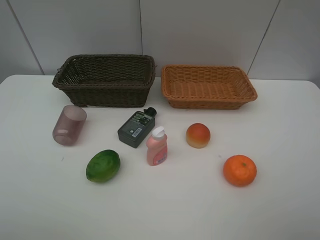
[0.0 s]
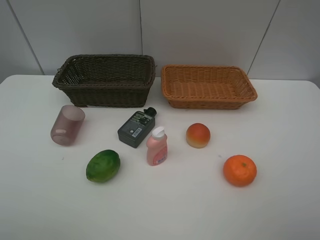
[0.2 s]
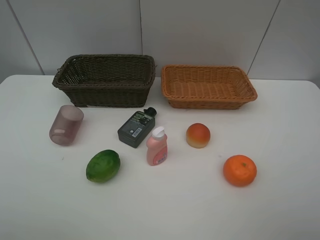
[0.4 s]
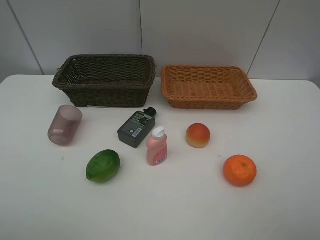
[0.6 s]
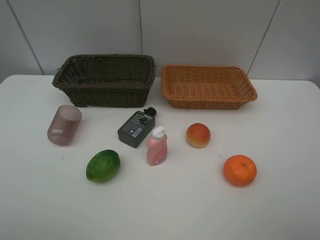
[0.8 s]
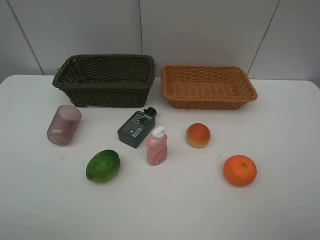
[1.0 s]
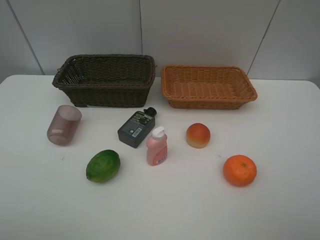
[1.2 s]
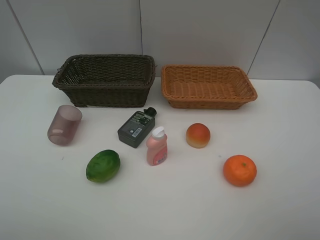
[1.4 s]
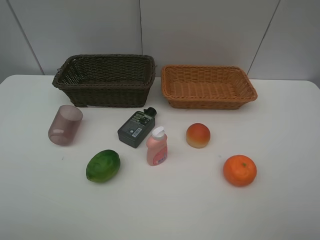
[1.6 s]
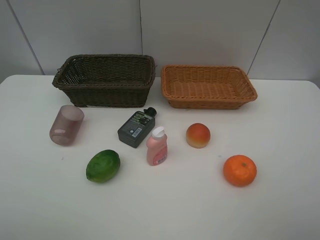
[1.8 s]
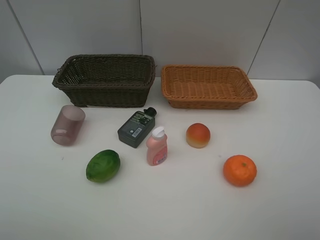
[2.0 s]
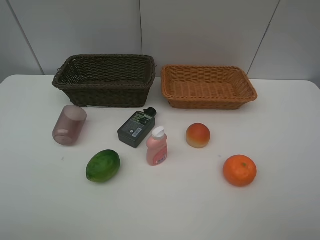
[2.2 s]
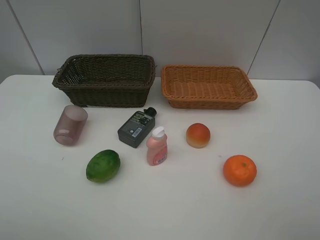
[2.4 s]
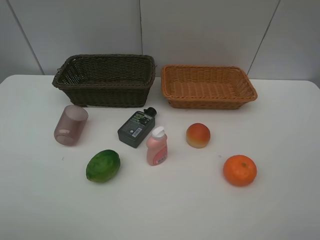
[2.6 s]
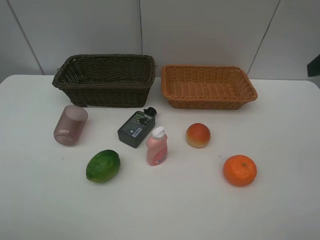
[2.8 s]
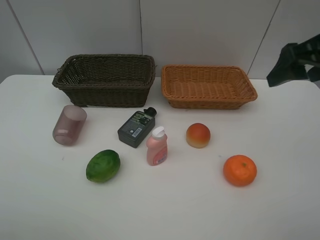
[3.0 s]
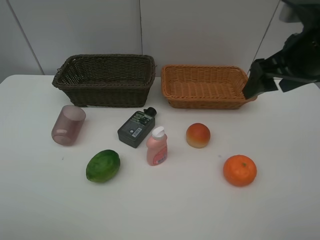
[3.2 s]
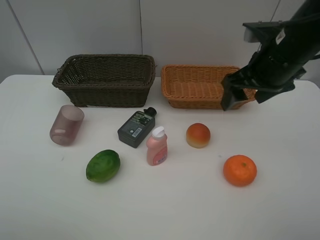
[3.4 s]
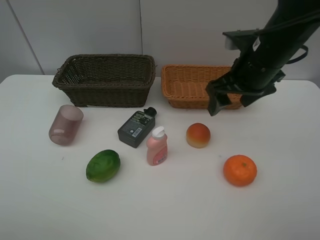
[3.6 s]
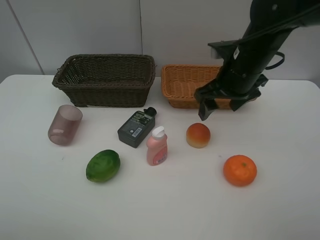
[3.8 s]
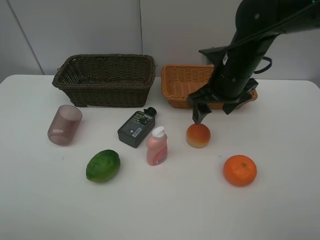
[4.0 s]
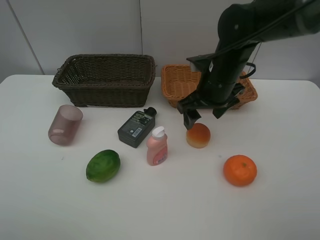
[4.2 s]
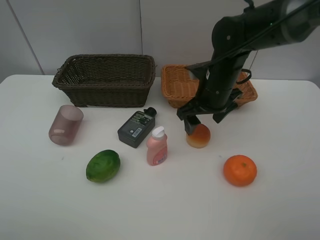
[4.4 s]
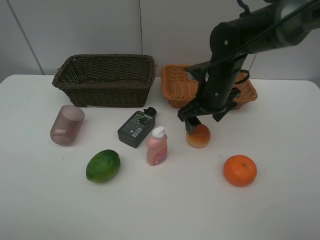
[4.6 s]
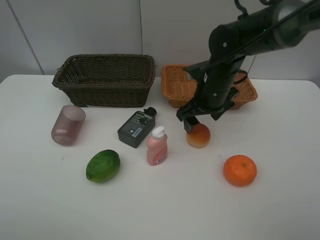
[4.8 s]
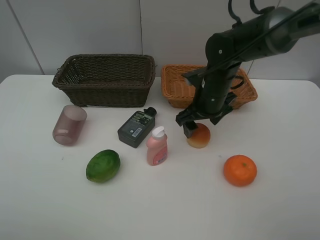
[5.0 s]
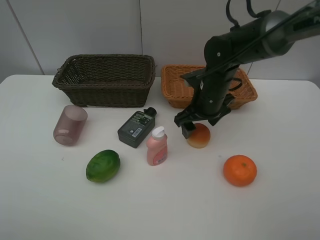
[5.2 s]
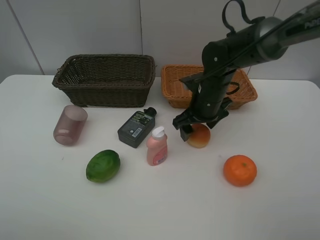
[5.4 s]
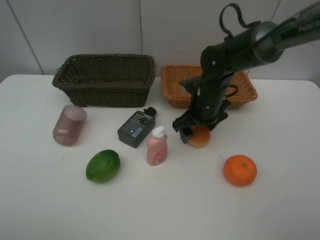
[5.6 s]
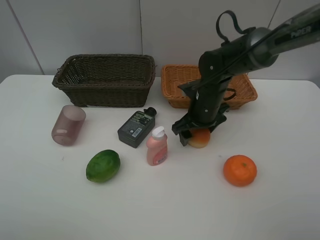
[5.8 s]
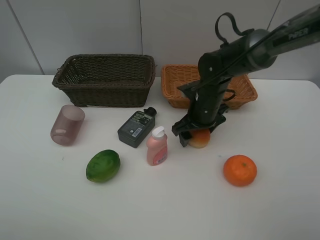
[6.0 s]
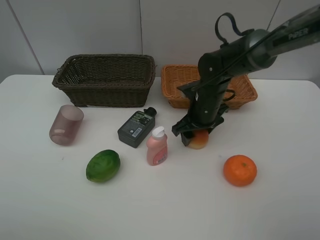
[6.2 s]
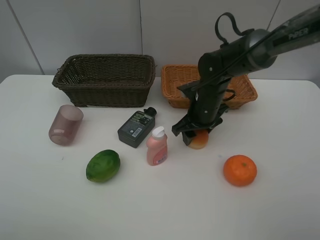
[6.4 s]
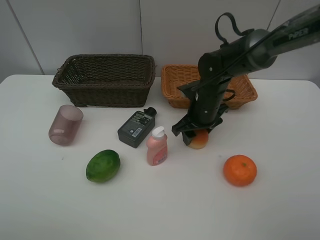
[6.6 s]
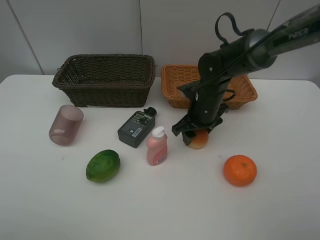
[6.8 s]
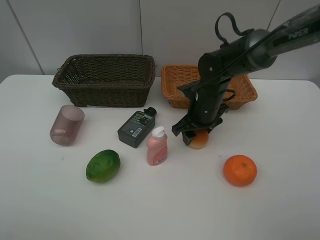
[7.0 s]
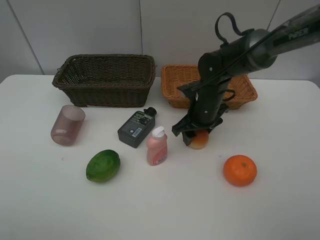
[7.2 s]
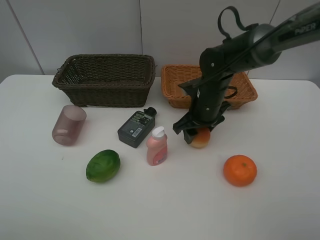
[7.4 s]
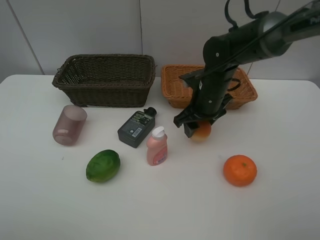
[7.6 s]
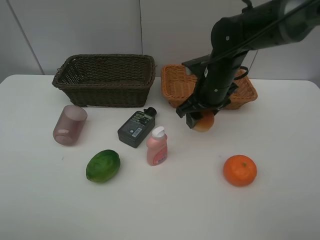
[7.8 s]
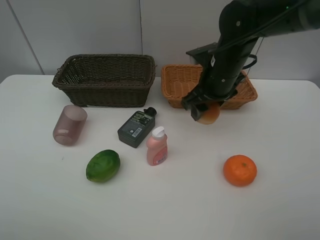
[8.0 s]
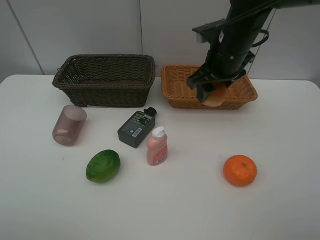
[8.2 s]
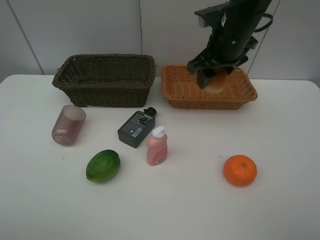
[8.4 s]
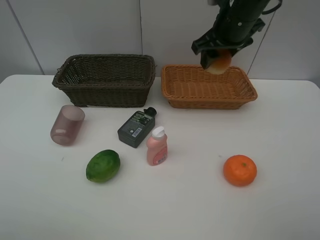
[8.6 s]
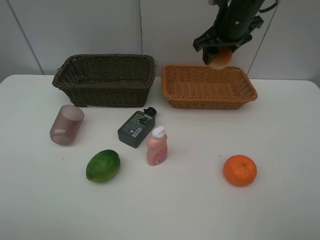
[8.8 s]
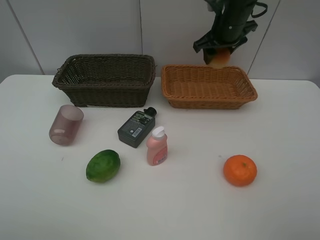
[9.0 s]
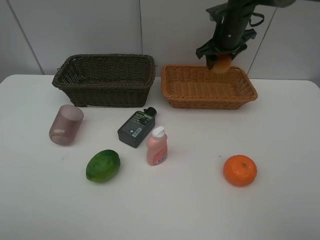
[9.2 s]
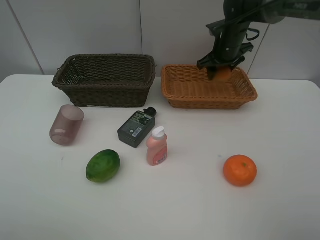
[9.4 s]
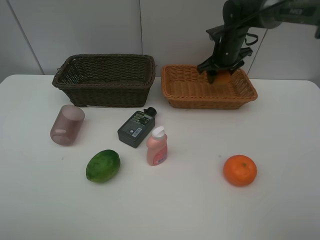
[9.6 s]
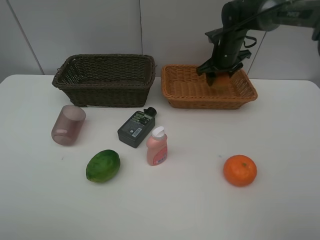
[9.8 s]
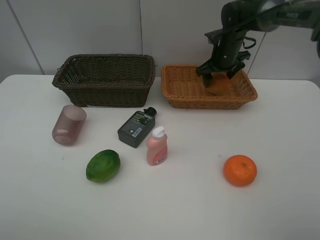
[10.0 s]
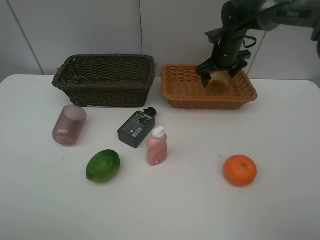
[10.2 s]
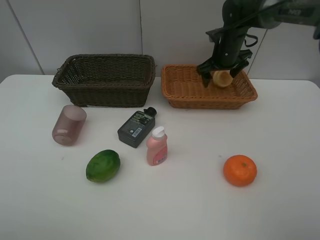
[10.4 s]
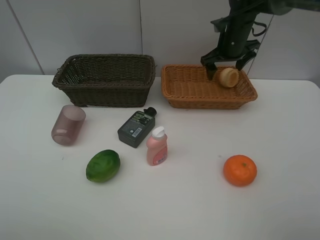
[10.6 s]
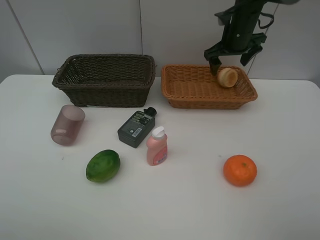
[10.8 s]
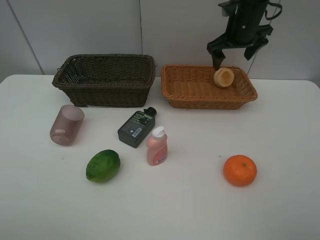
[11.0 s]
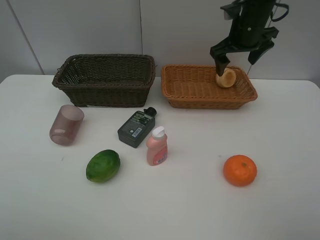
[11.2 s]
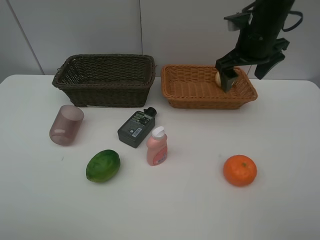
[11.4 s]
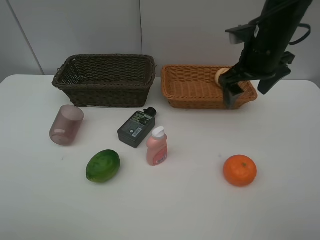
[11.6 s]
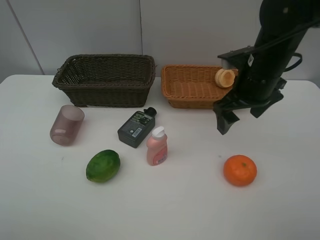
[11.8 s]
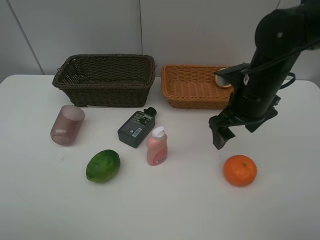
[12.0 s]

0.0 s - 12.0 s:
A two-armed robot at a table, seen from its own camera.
Task of the whole recording: place multiple objects separately in different baskets.
0.0 s - 1.6 s: Both grippers stay put.
1.6 s - 3.0 s: The right gripper travels forward by about 25 cm.
3.0 s - 4.4 s: The right gripper is displaced downward, to the left and forward by approximately 20 cm.
4.4 s - 6.0 s: The right gripper is displaced downward by some 5 cm.
6.0 s - 7.6 s: The grippers stay close to where they were, moving slightly.
7.6 s - 9.0 s: The right gripper moves forward and upward, some 15 cm.
9.0 s - 10.4 s: The right gripper moves downward, approximately 5 cm, and opens its fingers.
10.4 s - 12.0 s: The right gripper heads backward, covering approximately 20 cm.

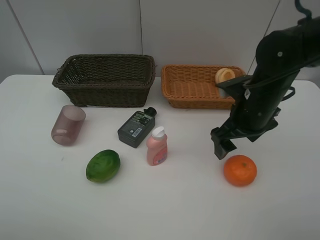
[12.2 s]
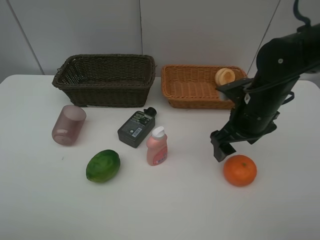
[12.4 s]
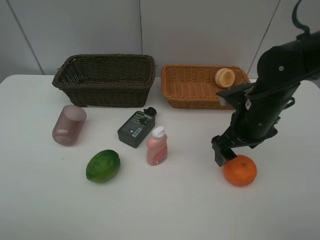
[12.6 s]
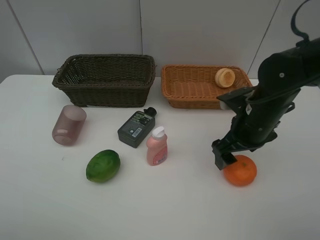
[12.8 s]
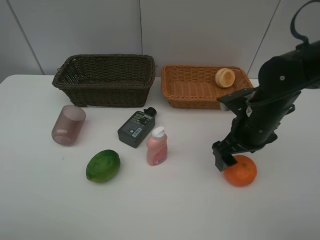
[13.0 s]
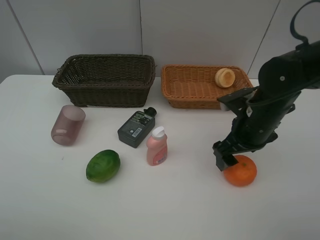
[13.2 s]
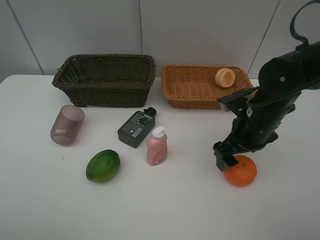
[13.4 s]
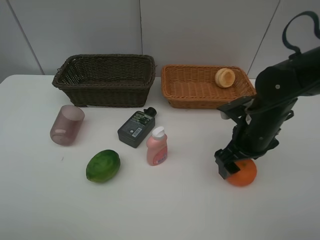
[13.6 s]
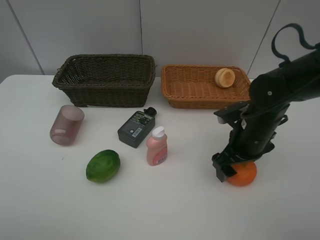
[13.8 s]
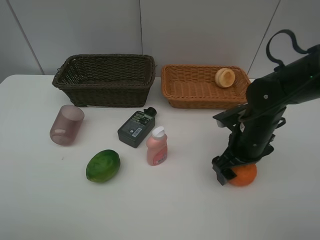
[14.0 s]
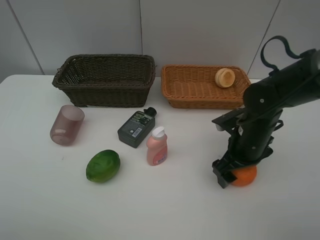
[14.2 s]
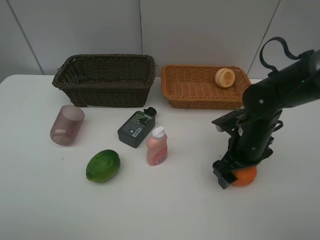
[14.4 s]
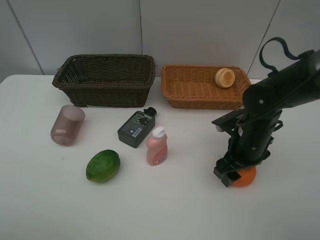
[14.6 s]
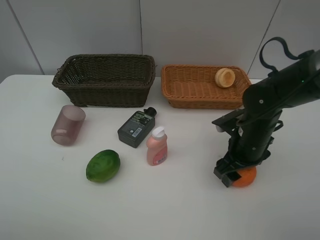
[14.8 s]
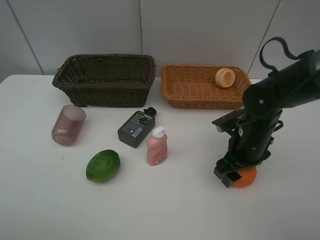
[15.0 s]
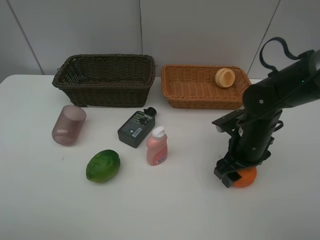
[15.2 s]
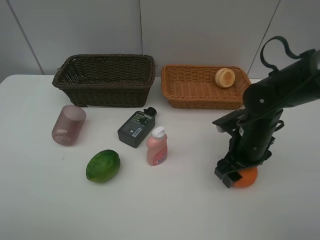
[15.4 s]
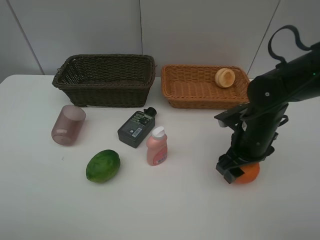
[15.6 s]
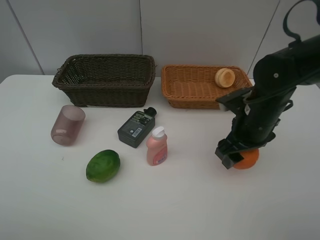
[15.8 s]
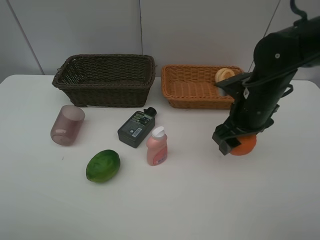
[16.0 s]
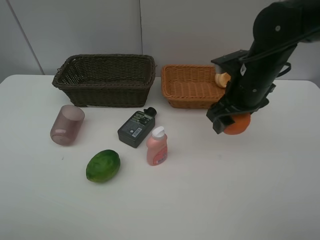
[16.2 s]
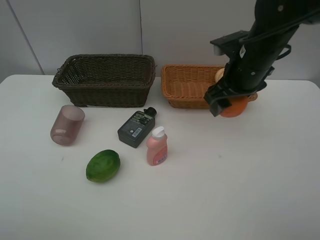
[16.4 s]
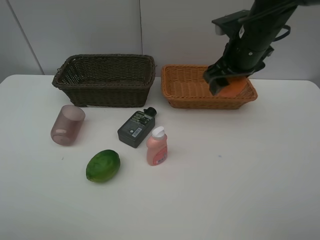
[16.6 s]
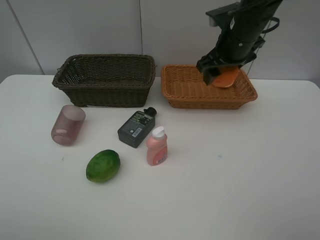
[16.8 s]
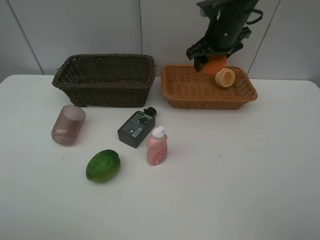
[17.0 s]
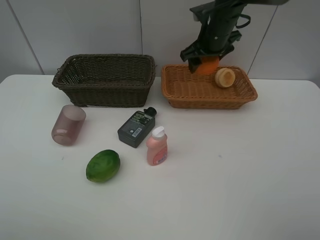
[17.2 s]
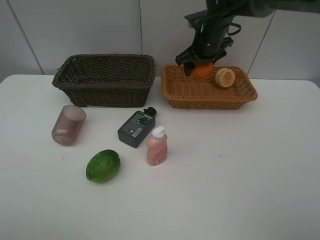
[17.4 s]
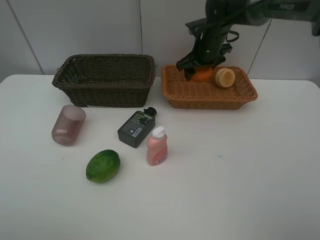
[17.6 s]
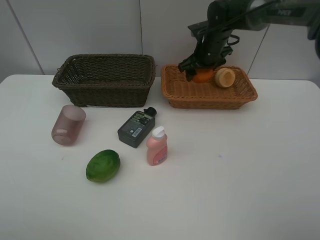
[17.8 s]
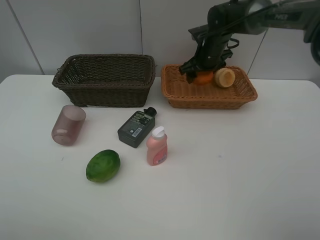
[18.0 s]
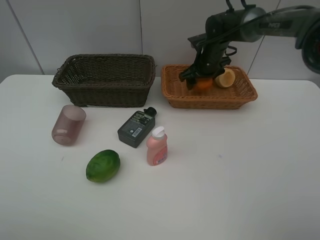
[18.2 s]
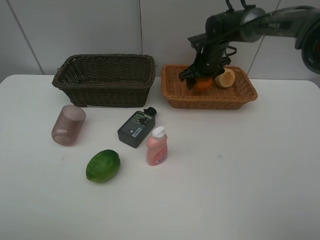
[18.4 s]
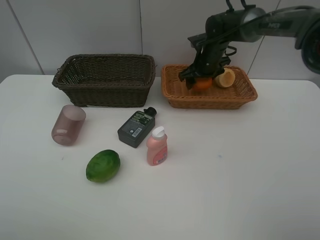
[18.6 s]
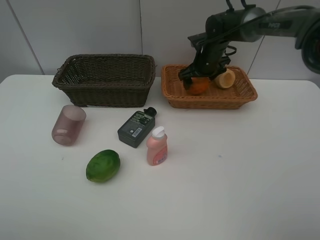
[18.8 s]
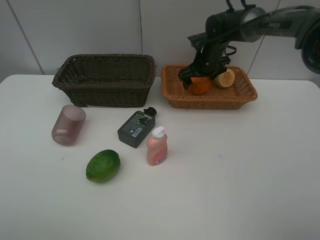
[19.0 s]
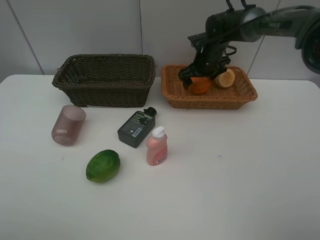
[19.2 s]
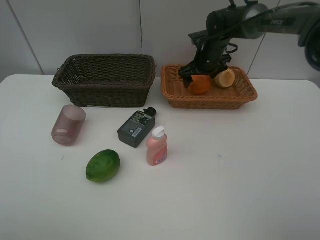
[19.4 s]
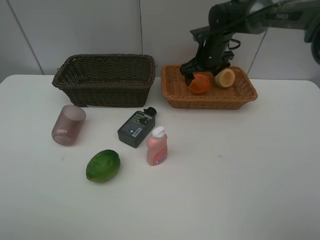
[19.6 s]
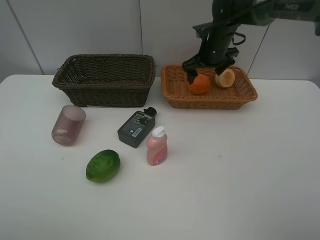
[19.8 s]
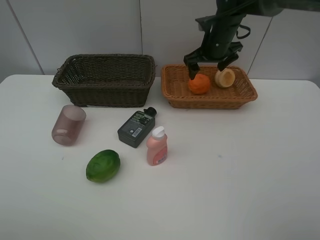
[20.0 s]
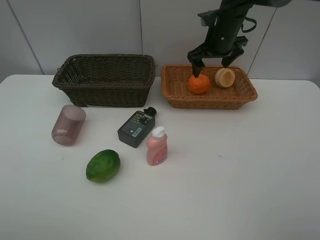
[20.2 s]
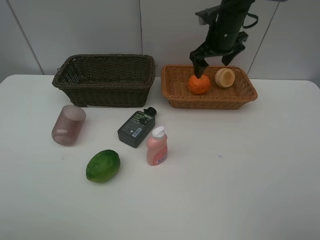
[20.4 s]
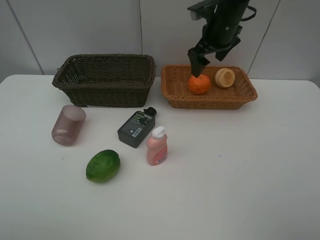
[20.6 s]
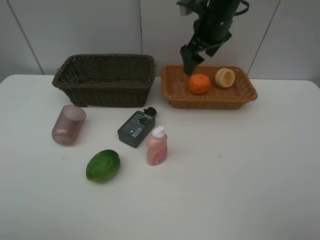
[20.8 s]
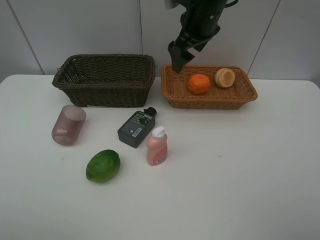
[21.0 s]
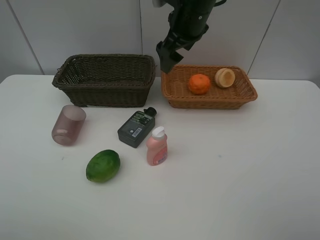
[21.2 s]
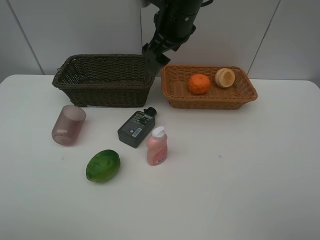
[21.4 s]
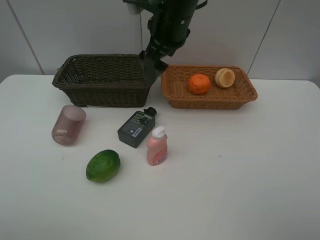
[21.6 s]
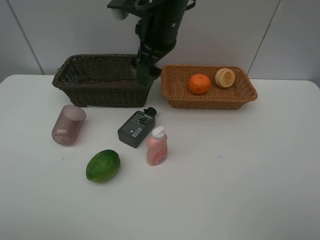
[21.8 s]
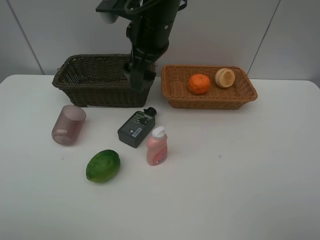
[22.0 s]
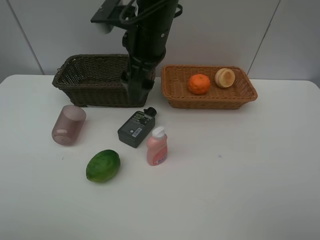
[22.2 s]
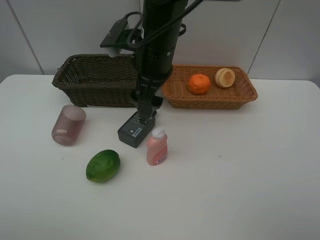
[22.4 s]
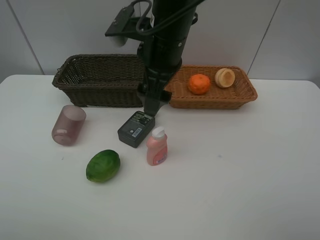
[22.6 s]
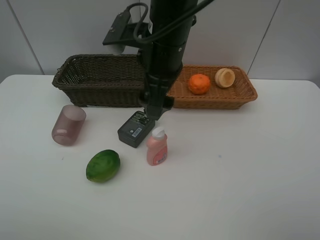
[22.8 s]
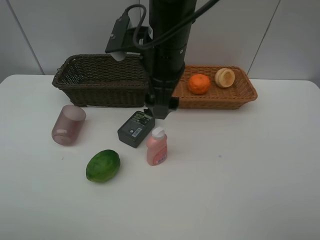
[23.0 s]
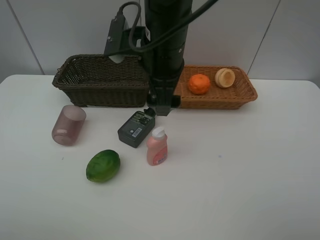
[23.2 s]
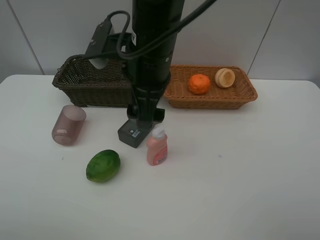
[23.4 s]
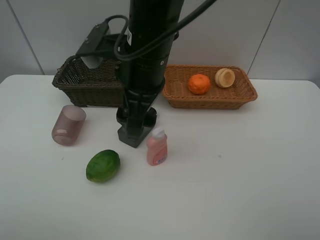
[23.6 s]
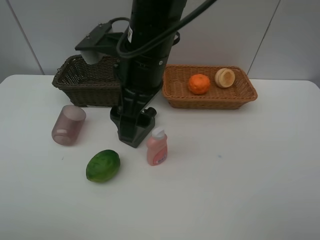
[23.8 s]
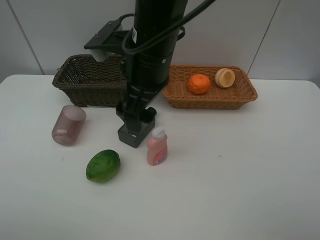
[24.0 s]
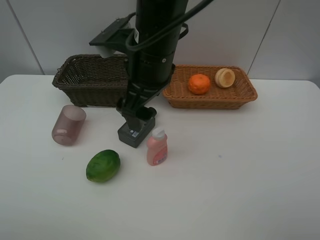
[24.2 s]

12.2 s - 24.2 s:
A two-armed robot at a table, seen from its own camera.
Task of the whole recording: place multiple objects separately in different baskets.
12.2 s - 13.8 s: The right gripper is displaced downward by about 5 cm.
13.8 s - 15.2 s: The grippers move only a little.
15.2 s - 16.6 s: The right gripper shifts about 20 cm upward and forward.
16.6 s - 18.2 s: The right gripper heads forward and downward, covering roughly 15 cm.
18.2 s - 19.8 s: The grippers move only a little.
19.8 s - 21.2 s: The right gripper goes roughly 15 cm upward, backward and to the left.
21.2 s - 22.6 s: The right gripper heads backward and to the left, covering about 10 cm.
22.6 s - 24.2 s: The grippers move only a little.
